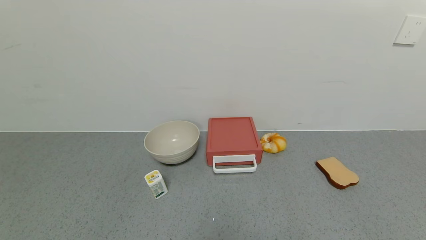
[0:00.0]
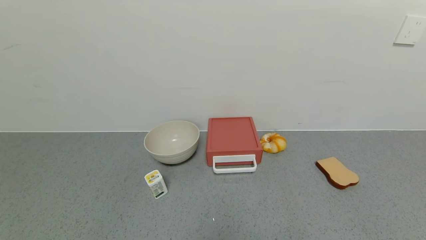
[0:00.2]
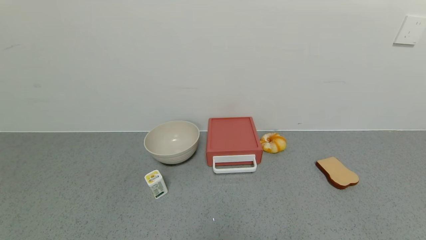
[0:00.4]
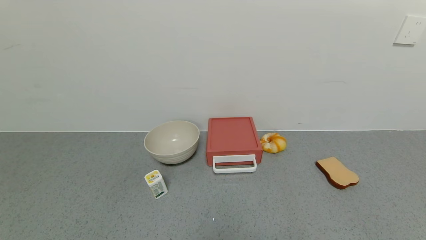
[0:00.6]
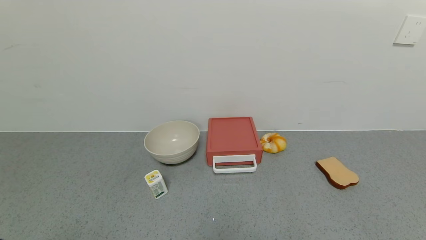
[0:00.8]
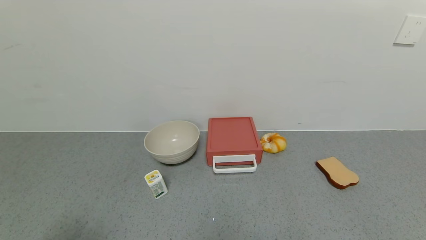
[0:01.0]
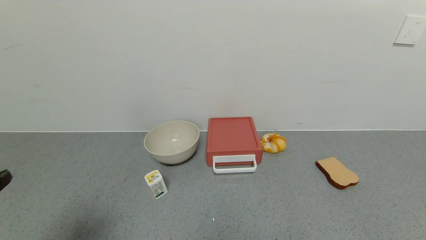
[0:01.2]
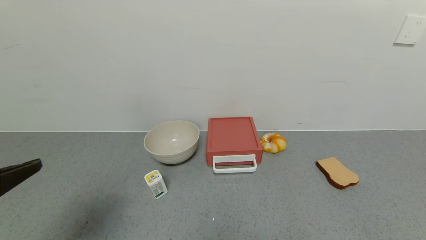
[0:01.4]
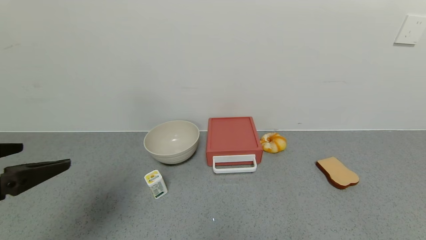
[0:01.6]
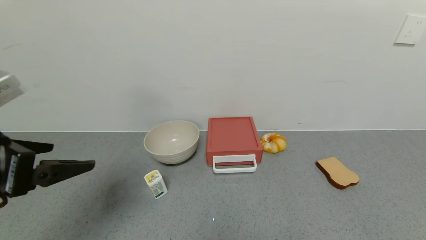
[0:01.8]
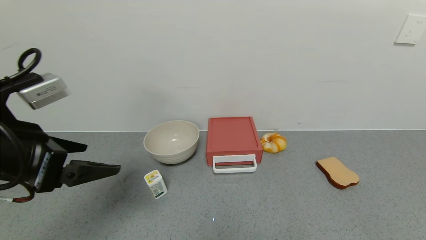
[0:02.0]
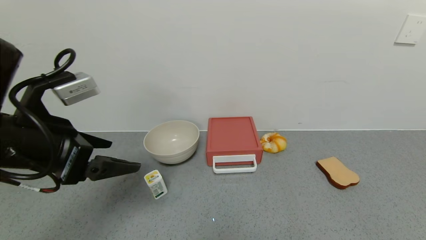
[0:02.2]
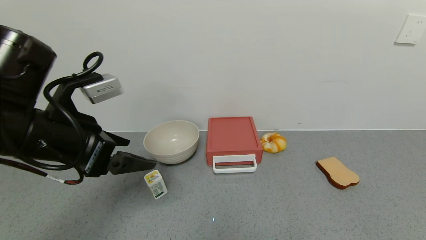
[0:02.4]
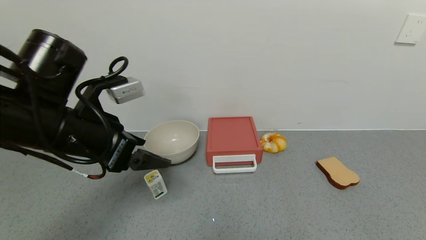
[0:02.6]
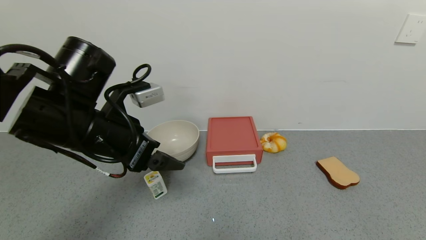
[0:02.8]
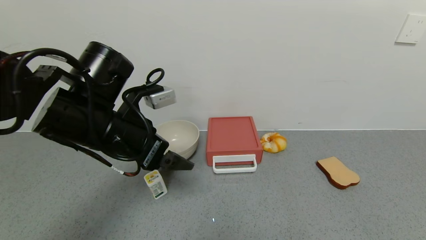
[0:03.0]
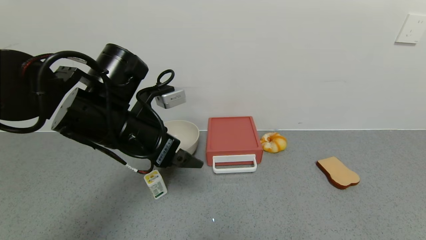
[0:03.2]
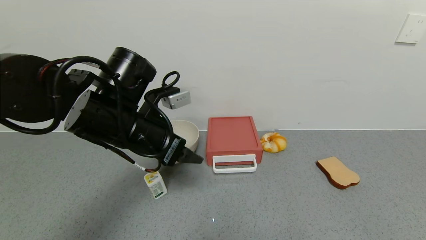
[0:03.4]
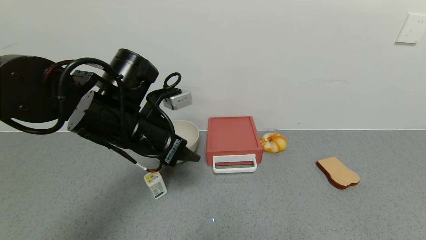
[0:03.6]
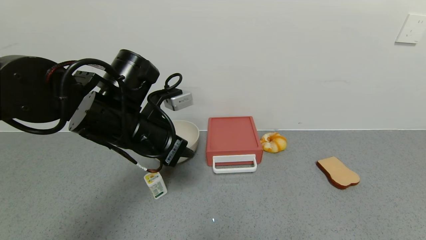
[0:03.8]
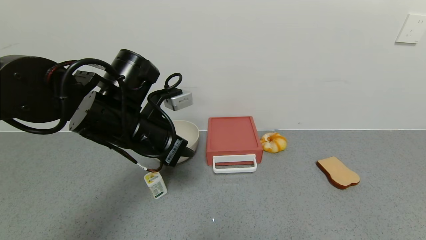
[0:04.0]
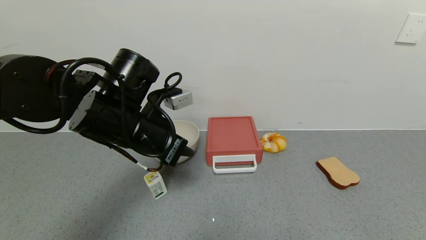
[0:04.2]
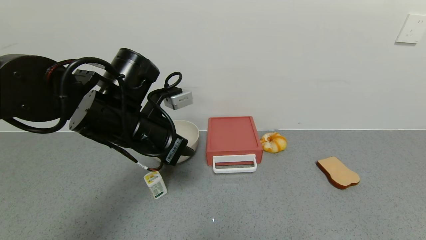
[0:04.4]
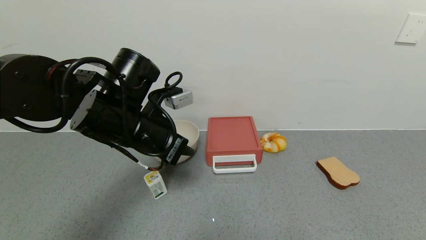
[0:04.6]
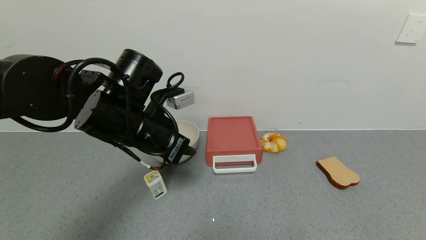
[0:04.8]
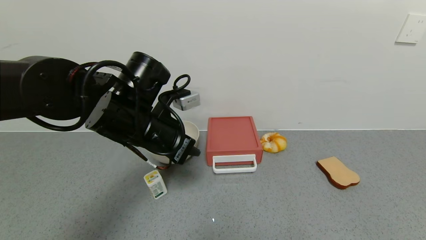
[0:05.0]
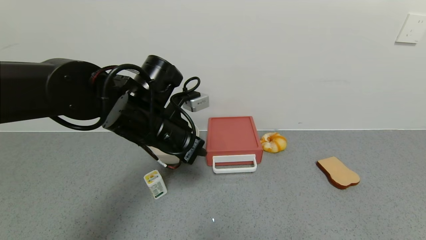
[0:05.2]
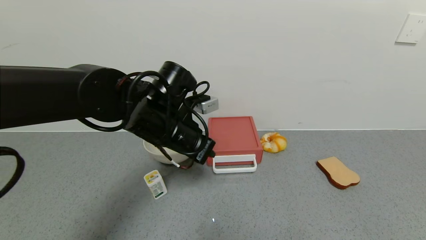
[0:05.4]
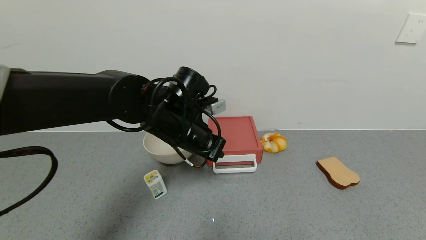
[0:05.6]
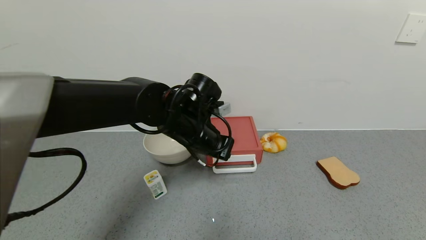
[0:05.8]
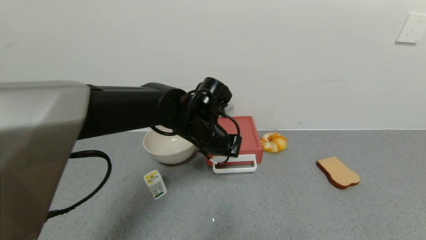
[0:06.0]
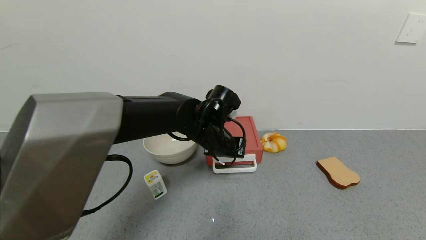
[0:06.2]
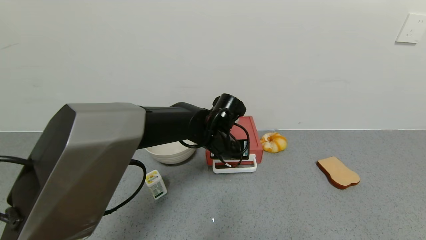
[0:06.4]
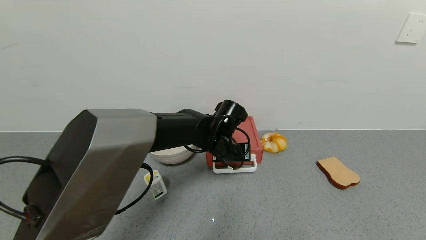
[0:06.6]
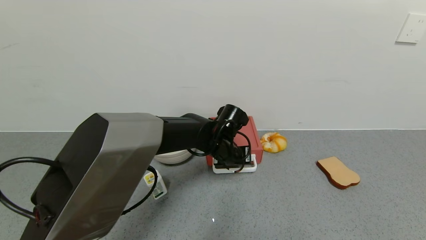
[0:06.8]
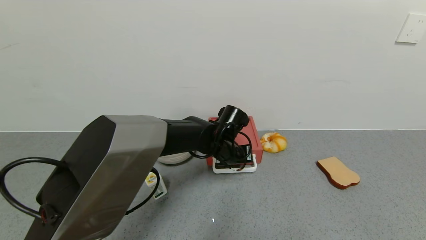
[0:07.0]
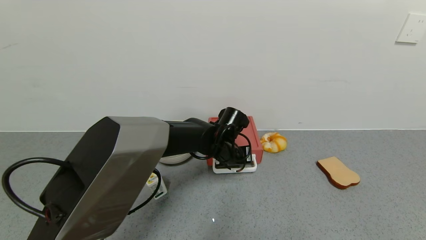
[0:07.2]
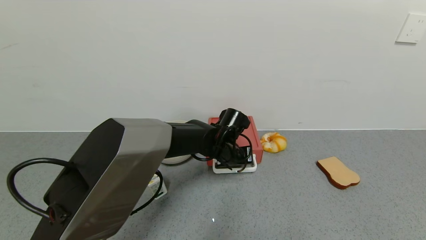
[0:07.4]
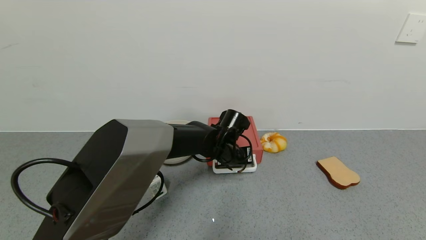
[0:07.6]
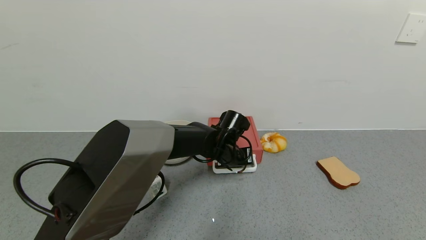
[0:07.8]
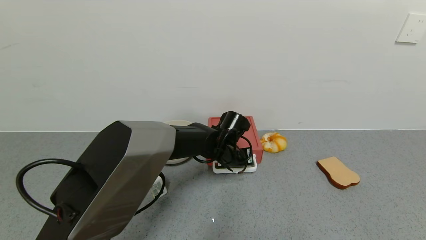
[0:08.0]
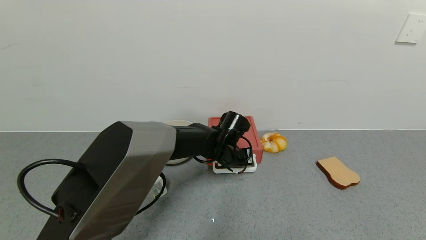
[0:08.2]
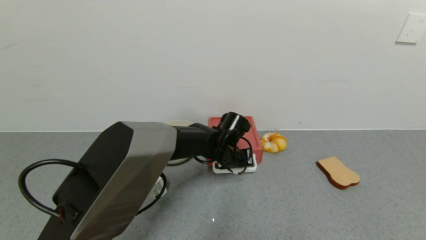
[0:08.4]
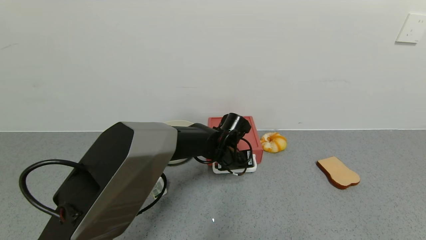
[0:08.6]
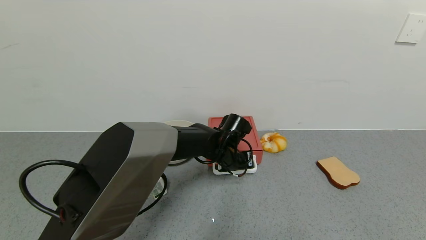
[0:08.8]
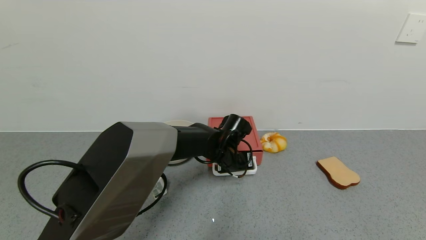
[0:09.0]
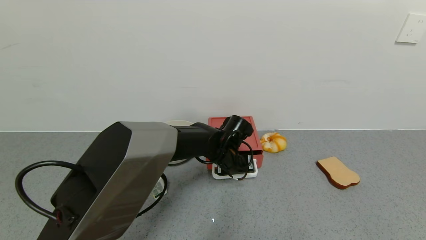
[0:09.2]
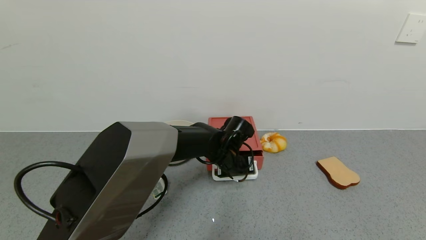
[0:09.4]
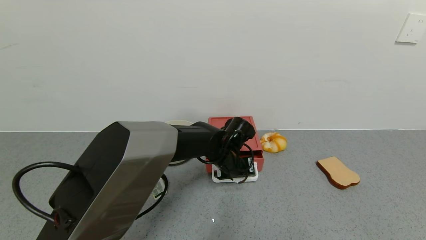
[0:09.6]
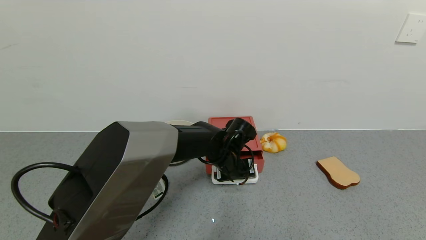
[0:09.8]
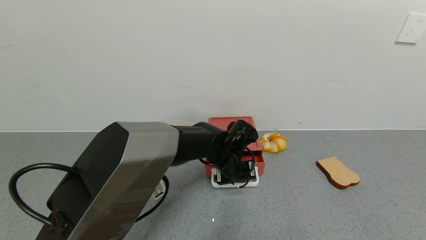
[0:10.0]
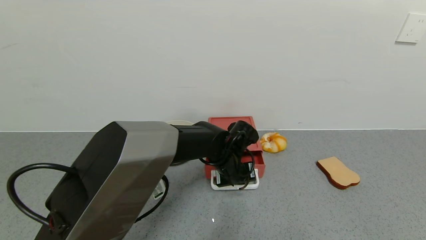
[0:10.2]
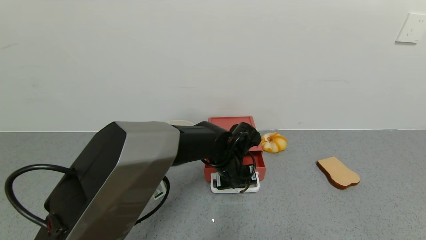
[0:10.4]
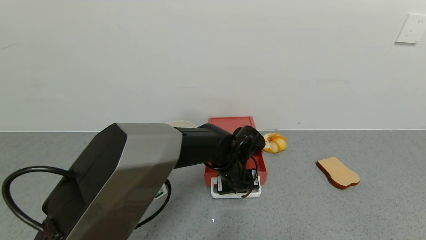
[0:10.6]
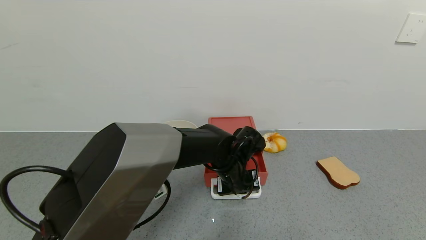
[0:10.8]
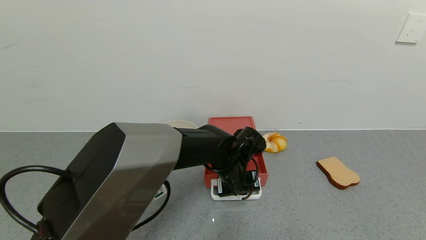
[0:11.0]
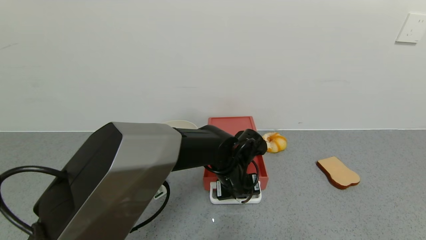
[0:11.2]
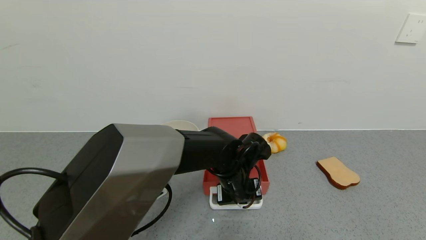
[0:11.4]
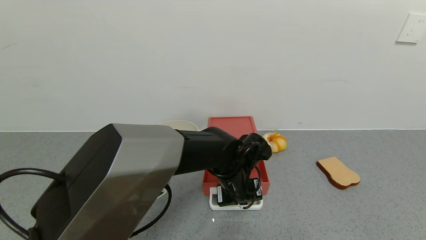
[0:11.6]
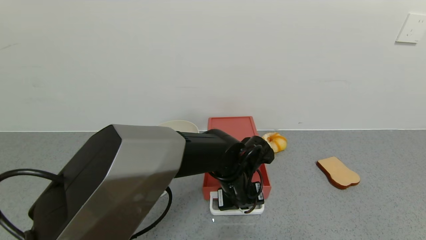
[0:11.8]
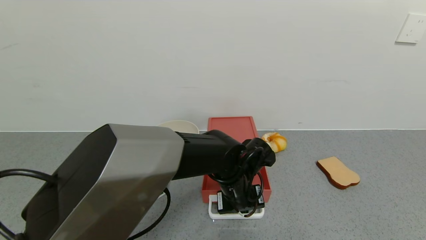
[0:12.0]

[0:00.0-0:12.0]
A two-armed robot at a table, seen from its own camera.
Task of the whole recording: use the gripper to open the drawer and close the red drawer.
0:00.0 to 0:01.6: The left gripper is displaced upward and forward by about 25 cm.
0:01.6 to 0:03.0: The left gripper shifts some 20 cm forward and to the right.
0:03.0 to 0:04.4: The left gripper closes.
0:04.4 to 0:06.0: The left gripper travels to the right, forward and downward by some 15 cm.
0:06.0 to 0:07.6: The left gripper goes about 10 cm downward.
0:07.6 to 0:09.0: The grippers move only a little.
0:09.0 to 0:10.4: The grippers make only small movements.
0:10.4 to 0:12.0: The grippers move only a little.

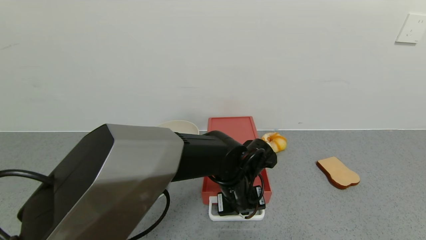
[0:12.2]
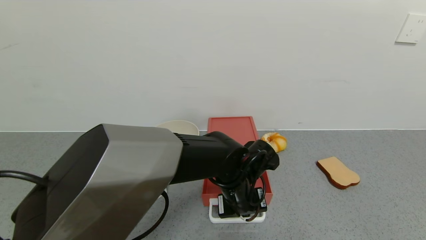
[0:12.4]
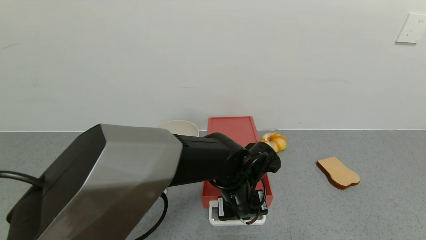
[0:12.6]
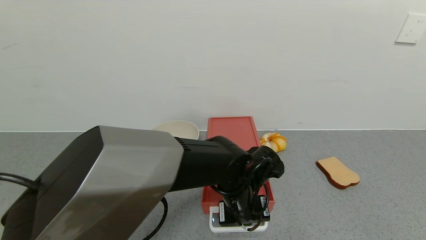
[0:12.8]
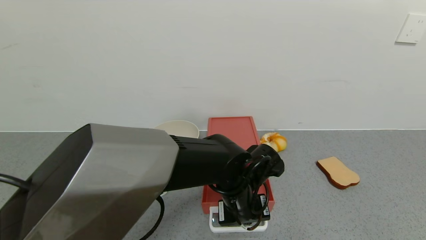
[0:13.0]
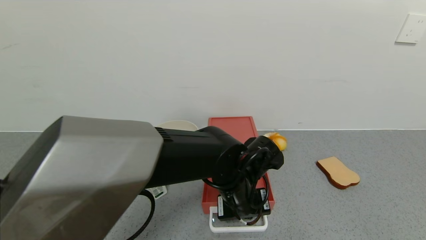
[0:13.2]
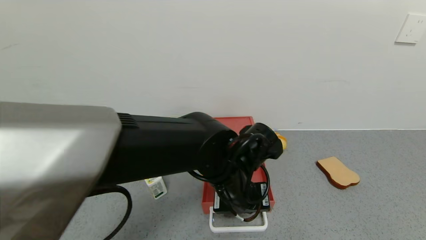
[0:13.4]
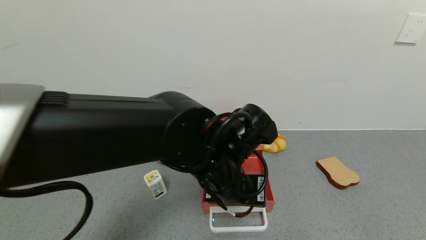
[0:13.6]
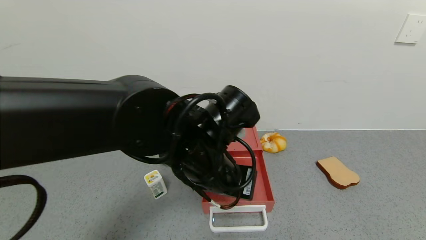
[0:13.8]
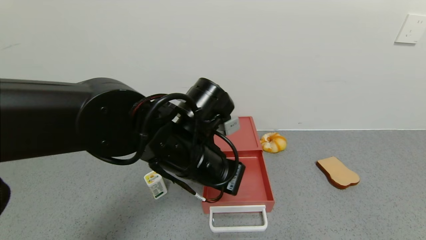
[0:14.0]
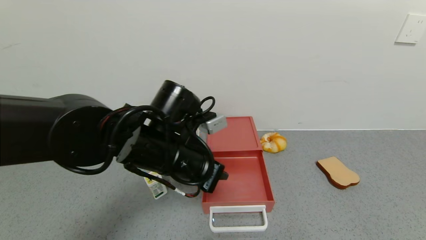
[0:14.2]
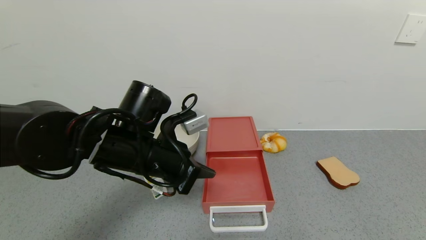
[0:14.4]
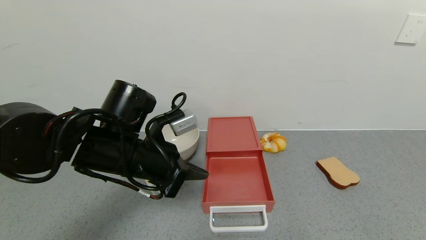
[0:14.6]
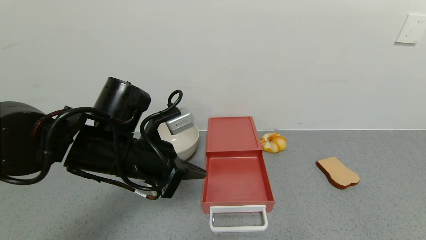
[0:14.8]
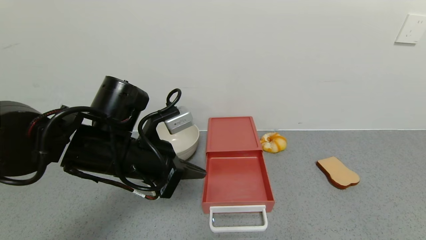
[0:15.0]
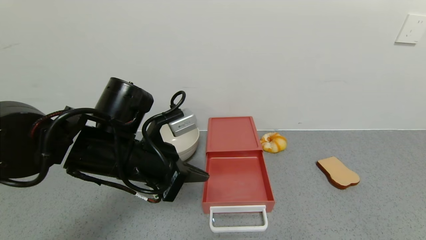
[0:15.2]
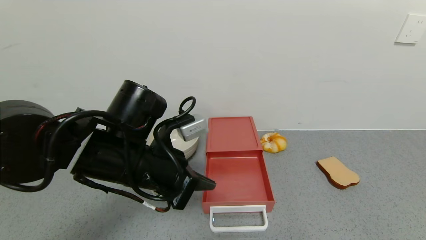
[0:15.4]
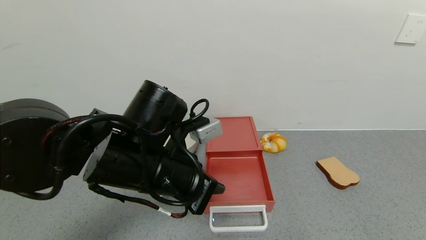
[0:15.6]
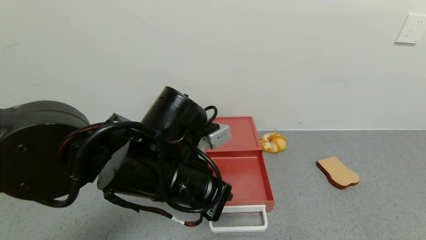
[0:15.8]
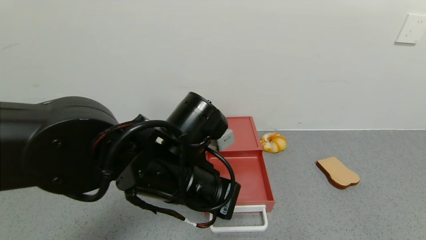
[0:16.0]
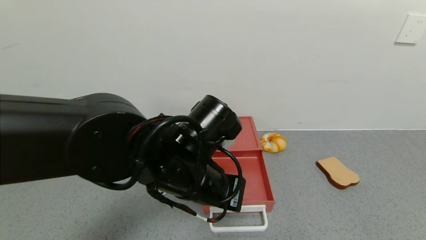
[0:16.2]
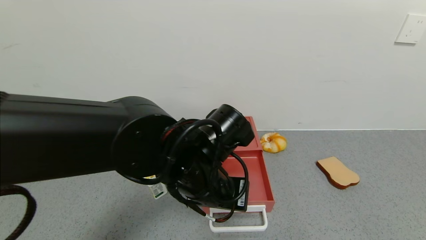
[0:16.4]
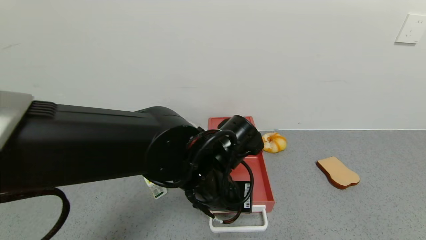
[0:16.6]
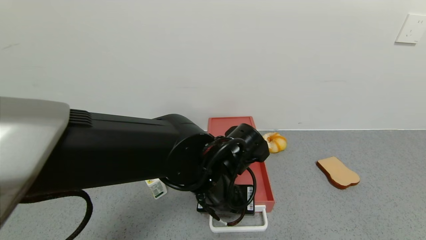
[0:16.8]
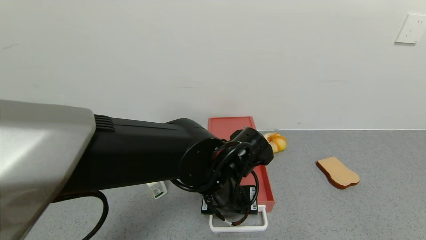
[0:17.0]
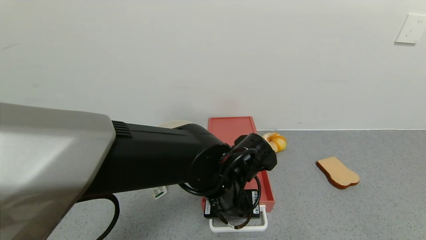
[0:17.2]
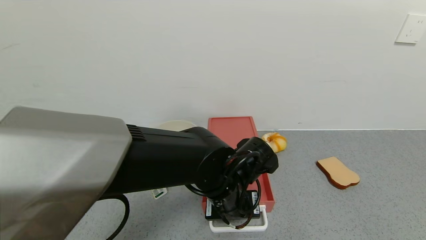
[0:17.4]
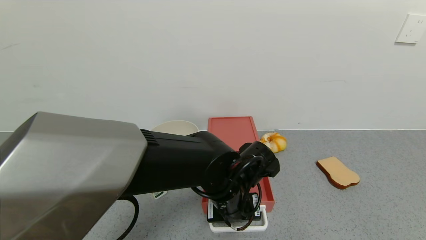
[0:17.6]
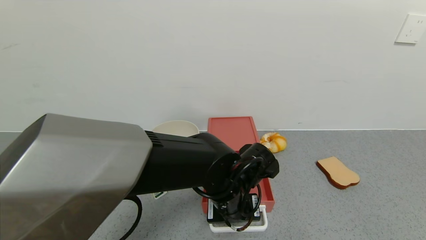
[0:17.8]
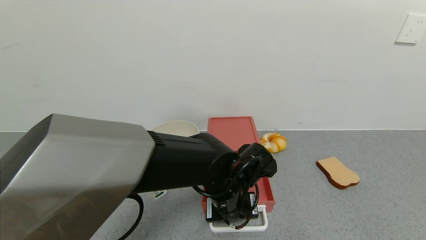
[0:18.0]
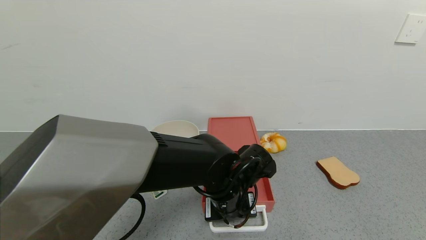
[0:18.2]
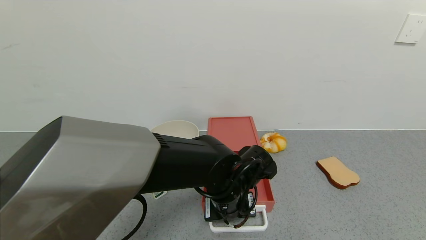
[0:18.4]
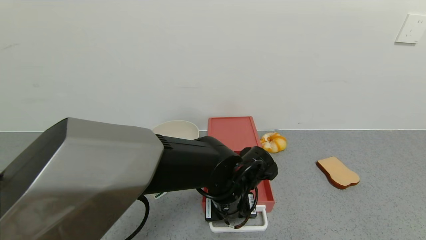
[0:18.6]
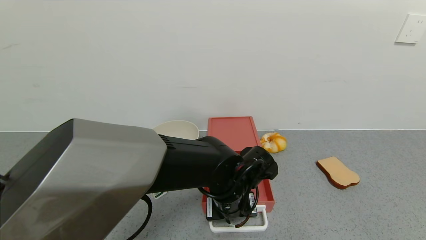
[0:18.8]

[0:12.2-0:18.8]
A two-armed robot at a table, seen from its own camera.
Task of the whole recording: use the gripper to open the drawer and close the red drawer.
0:12.2 to 0:13.8: The left gripper goes about 15 cm upward and to the left.
0:13.8 to 0:15.4: The left gripper is displaced to the left by some 10 cm.
0:15.4 to 0:17.2: The left gripper travels to the right and downward by approximately 15 cm.
0:17.2 to 0:18.8: The grippers move only a little.
